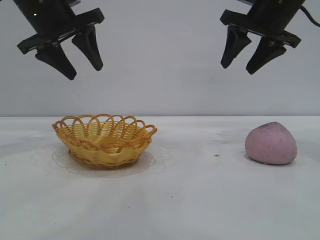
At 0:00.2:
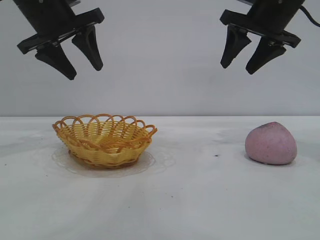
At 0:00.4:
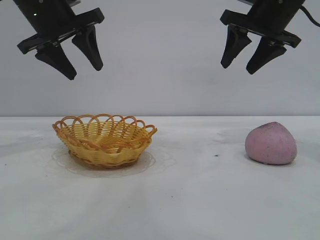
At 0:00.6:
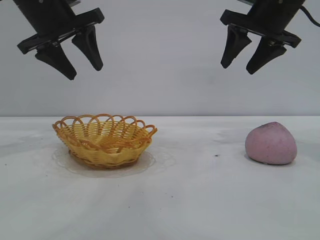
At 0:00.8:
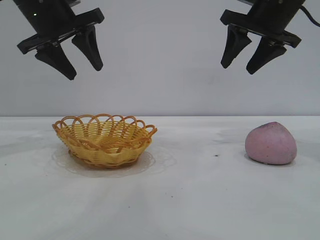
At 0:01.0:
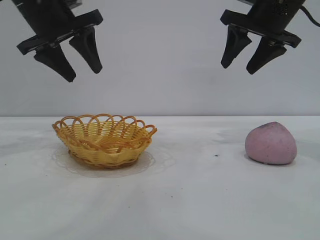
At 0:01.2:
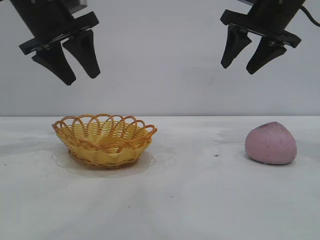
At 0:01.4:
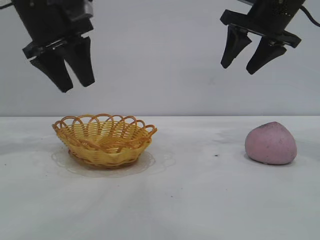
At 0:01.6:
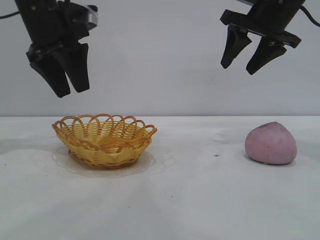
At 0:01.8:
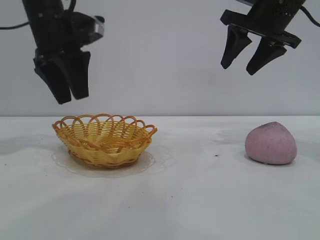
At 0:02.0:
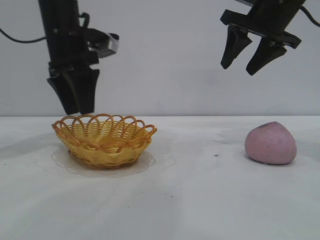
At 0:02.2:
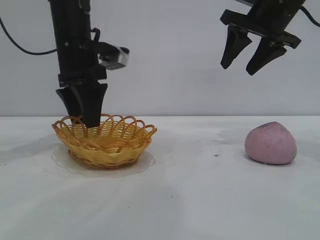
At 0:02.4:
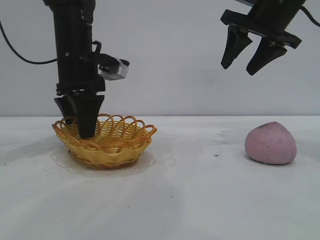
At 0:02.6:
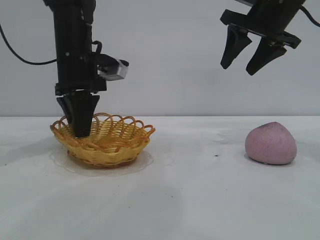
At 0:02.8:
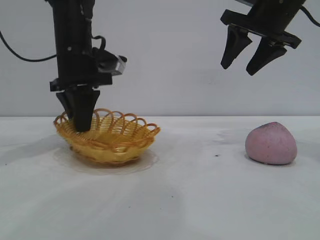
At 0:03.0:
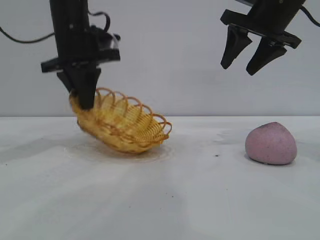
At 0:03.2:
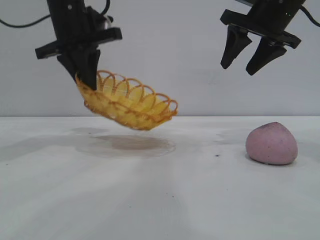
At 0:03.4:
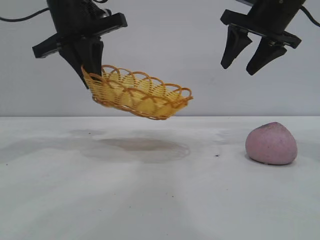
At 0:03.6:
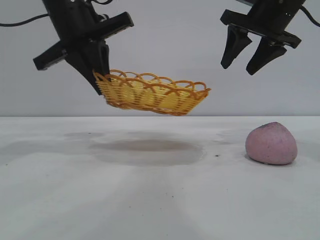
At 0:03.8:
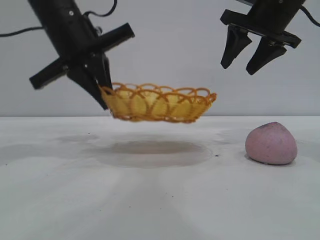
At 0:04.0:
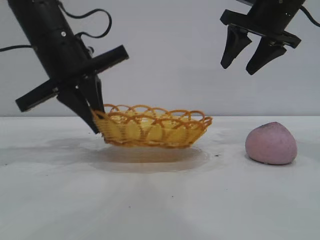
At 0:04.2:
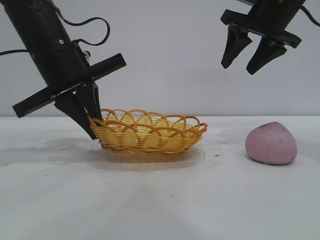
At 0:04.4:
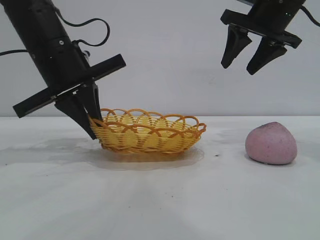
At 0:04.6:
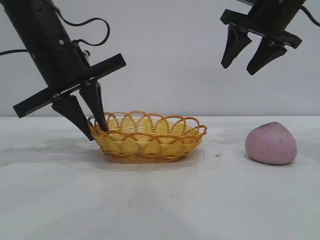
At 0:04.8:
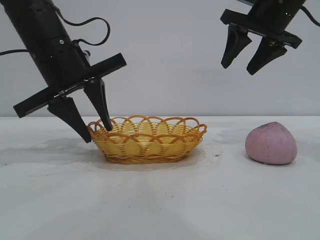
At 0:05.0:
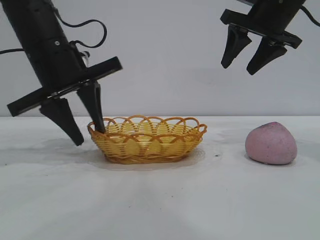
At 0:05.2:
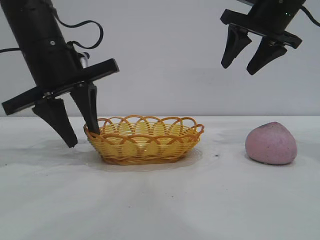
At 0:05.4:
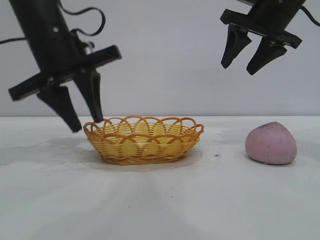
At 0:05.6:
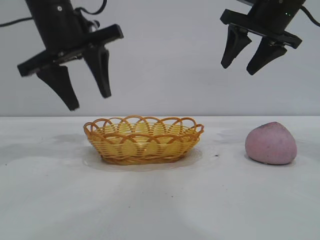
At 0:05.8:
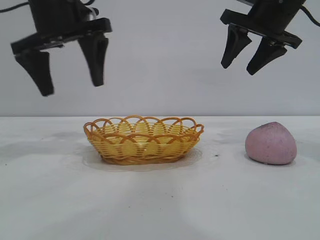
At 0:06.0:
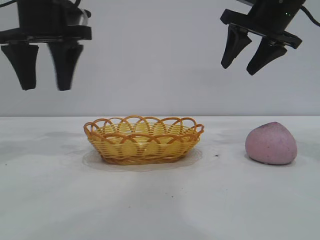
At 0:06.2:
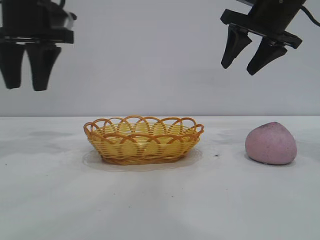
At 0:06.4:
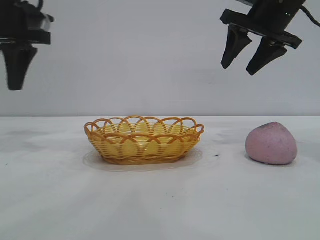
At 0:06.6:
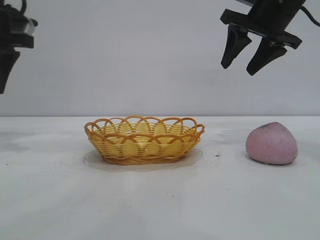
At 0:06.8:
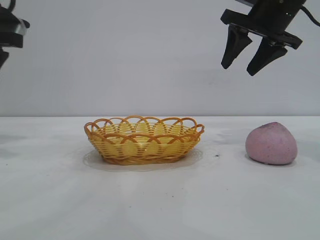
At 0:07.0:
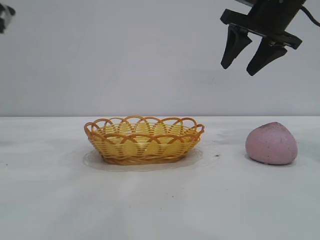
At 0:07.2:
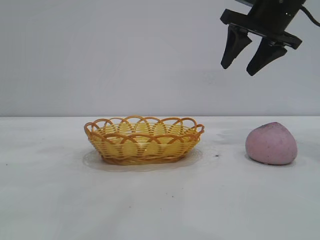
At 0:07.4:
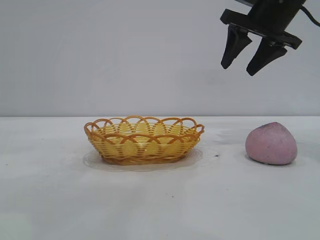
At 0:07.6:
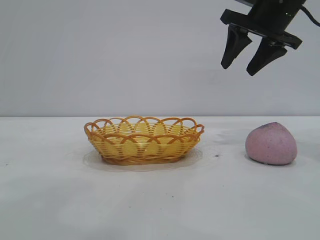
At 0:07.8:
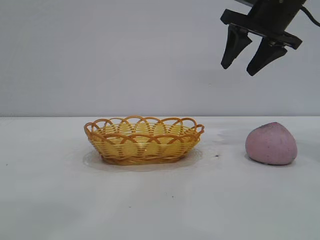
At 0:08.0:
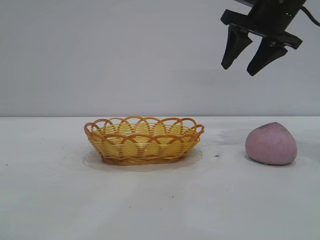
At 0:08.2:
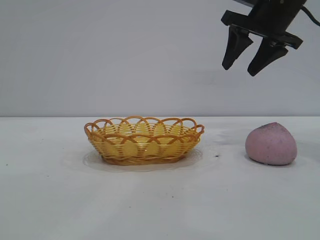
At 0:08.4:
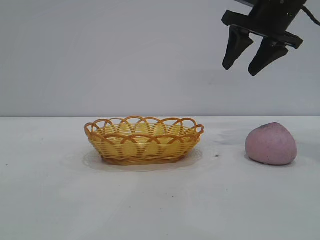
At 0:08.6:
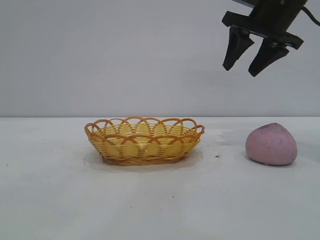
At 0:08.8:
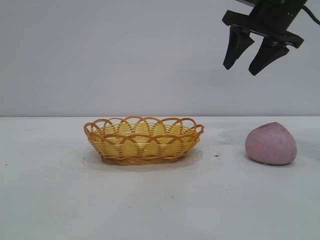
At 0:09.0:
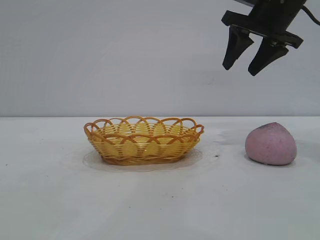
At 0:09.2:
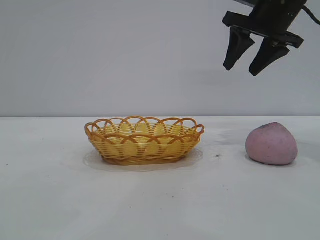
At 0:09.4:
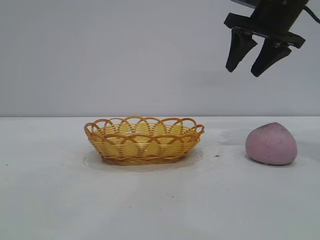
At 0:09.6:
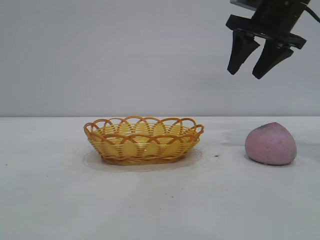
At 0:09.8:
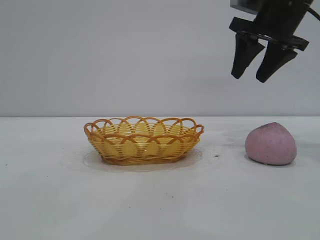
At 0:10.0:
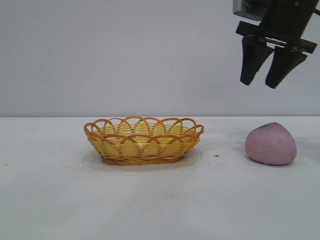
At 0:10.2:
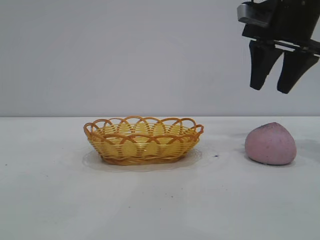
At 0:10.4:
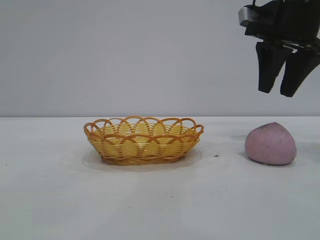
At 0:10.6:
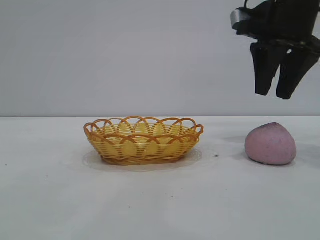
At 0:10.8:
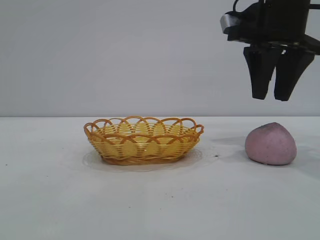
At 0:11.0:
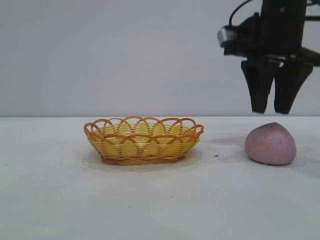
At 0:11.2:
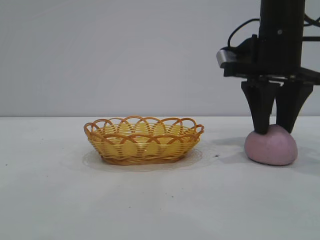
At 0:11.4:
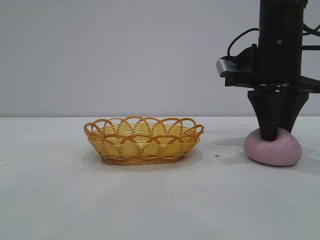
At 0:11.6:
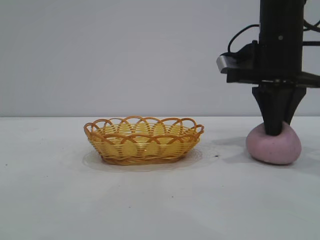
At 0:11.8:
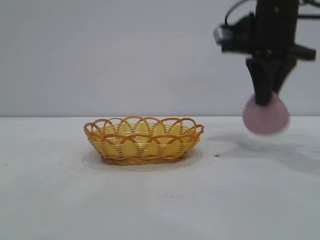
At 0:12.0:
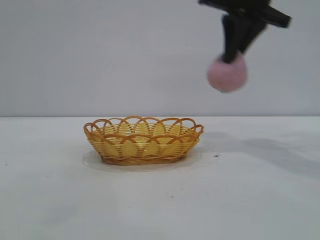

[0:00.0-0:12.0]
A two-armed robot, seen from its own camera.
Task of the whole recording: pick up the peach and put it into the basket.
Step, 0:00.0 to 0:05.6: Move the basket to the center of view.
Step, 0:06.0 to 0:11.8: Pick up the peach.

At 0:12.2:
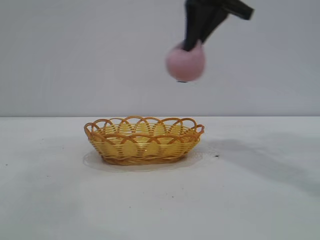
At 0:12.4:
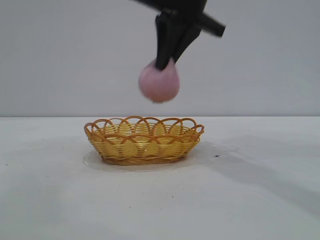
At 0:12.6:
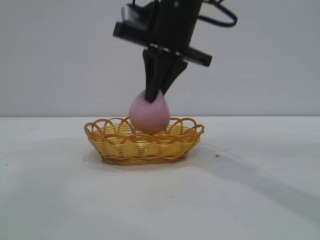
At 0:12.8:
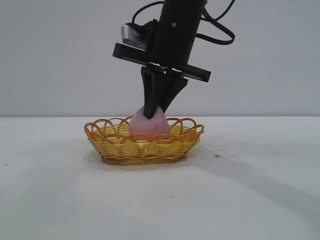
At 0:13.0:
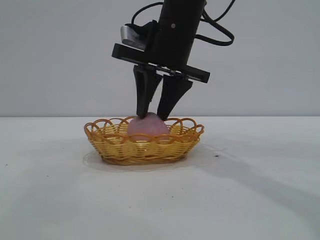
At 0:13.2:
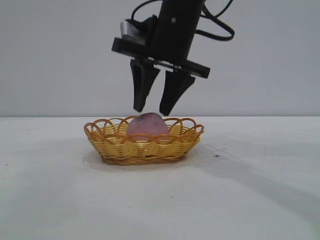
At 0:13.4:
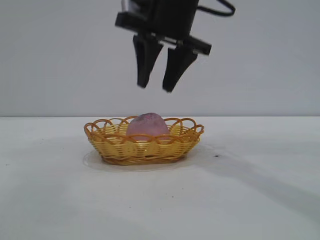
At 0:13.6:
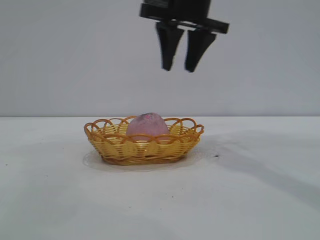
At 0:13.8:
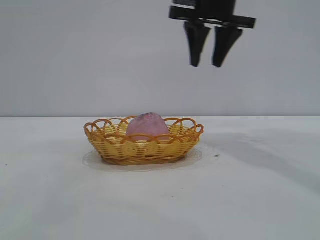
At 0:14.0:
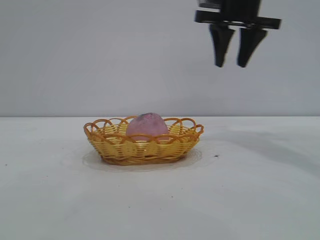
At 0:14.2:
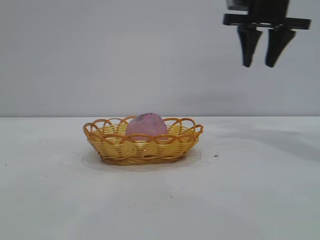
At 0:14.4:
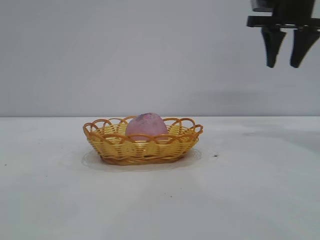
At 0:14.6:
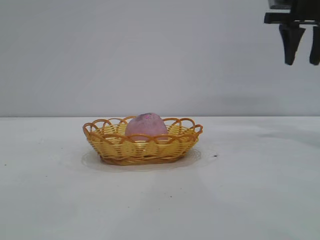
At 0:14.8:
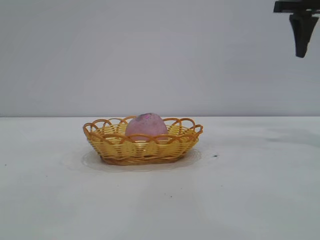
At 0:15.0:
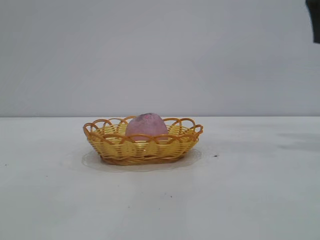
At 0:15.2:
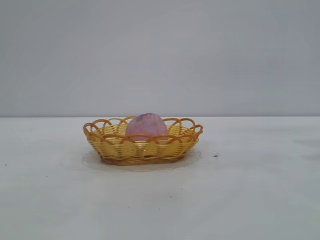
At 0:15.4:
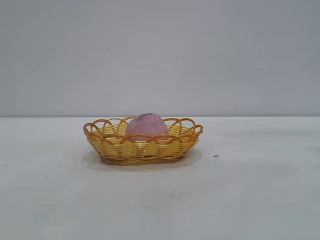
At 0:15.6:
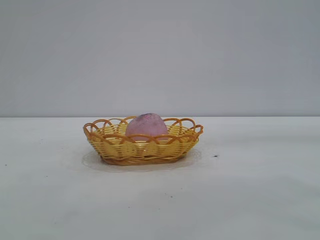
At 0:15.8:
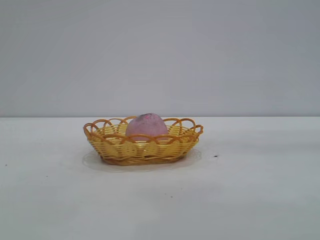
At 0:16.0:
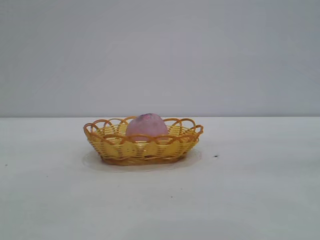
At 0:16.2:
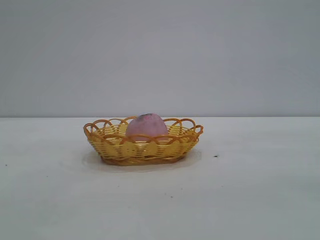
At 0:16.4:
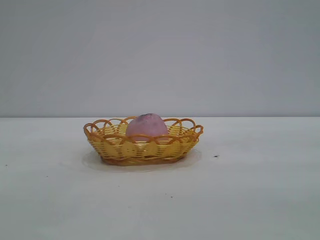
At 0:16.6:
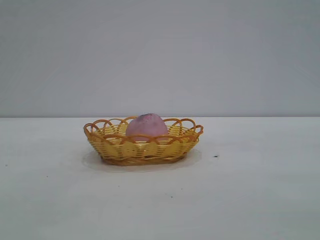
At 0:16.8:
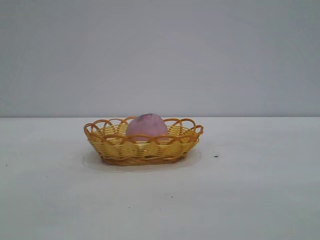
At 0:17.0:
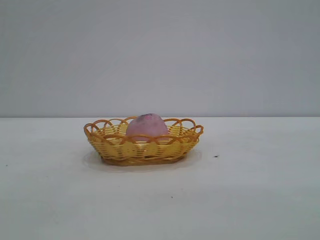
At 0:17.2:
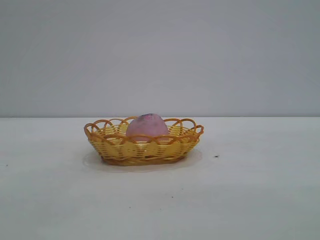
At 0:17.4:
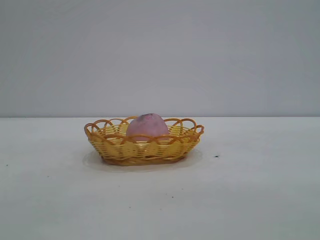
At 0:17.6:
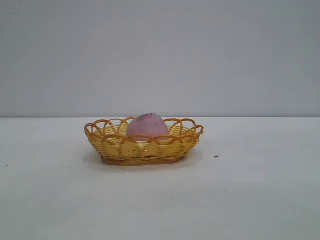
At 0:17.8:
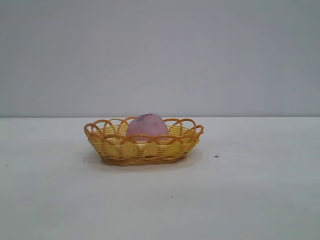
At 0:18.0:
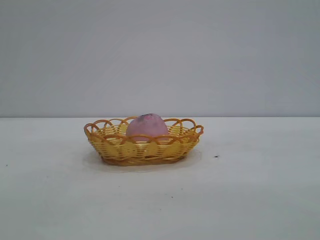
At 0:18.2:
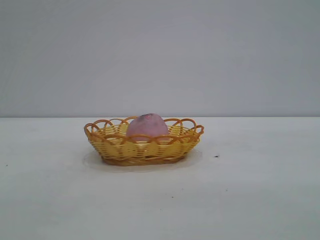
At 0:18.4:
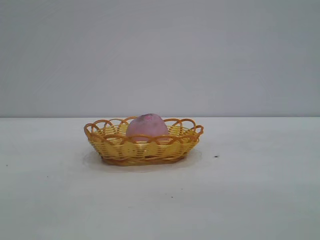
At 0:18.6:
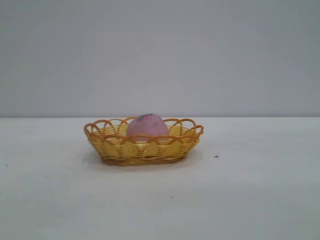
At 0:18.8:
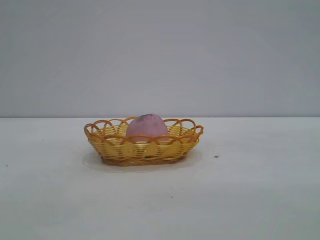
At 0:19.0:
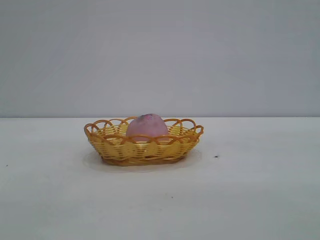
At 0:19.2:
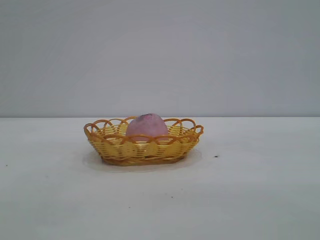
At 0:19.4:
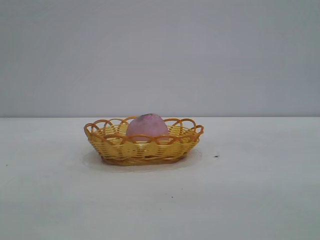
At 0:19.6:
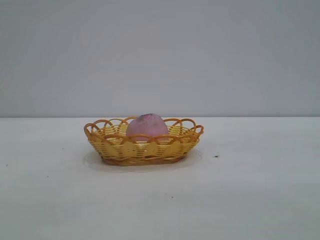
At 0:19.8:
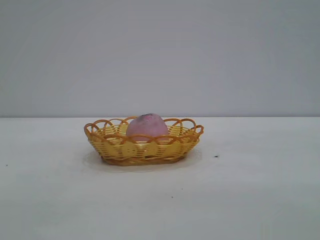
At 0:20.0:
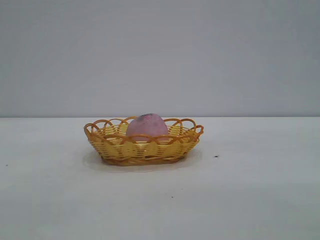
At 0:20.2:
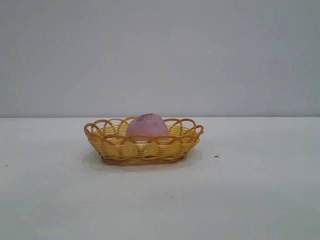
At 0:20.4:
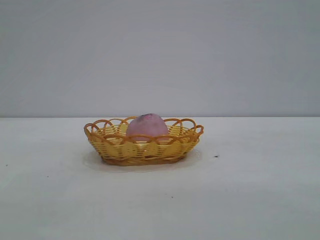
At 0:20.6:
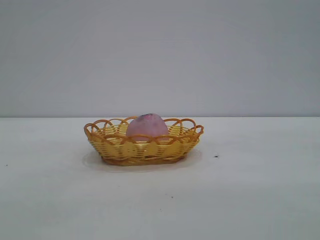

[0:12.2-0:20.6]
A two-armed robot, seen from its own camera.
Task of the whole recording: pick up the peach and put it into the basket.
Step, 0:12.2 to 0:13.6: place the peach into the basket.
